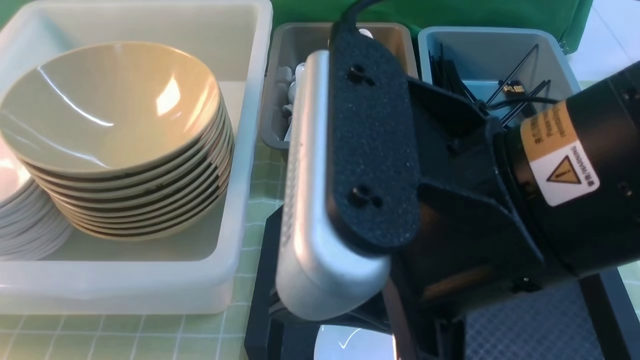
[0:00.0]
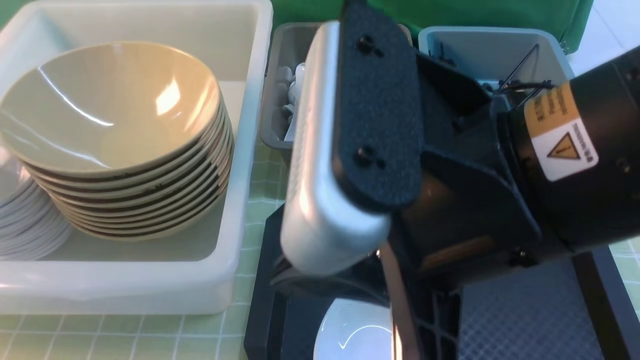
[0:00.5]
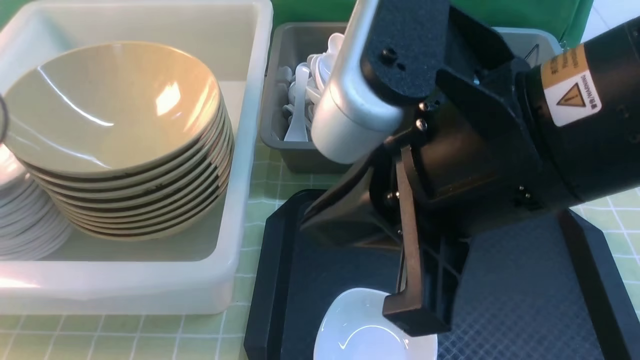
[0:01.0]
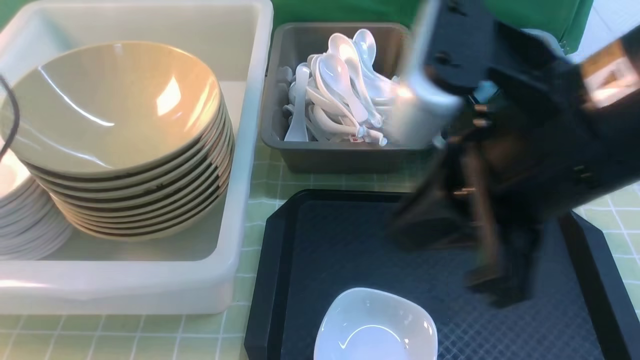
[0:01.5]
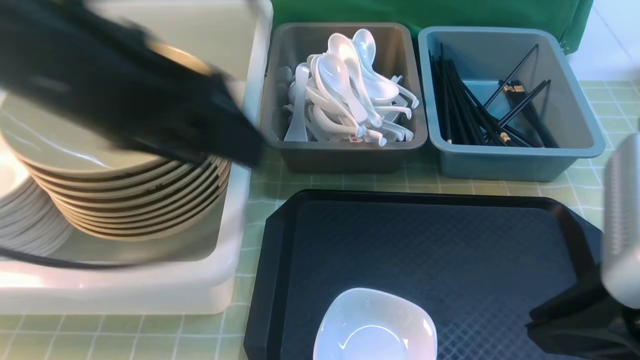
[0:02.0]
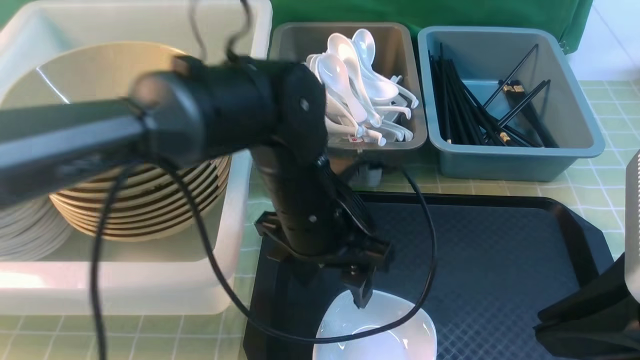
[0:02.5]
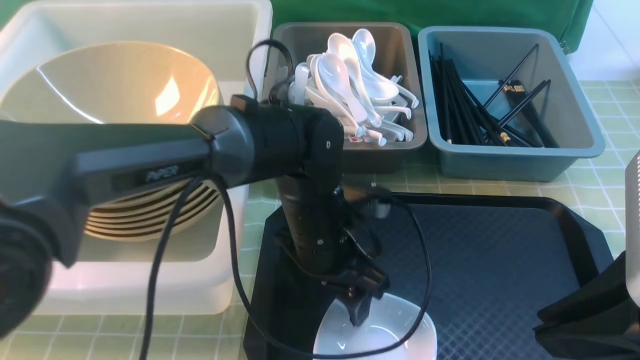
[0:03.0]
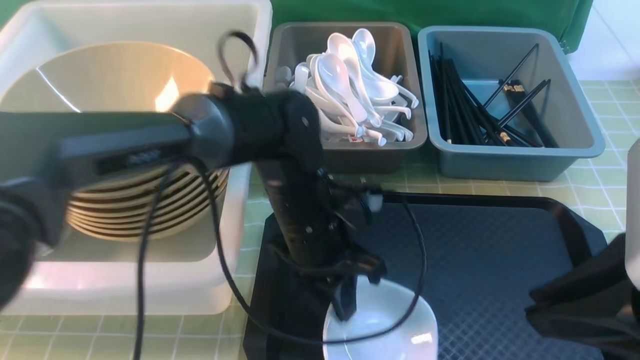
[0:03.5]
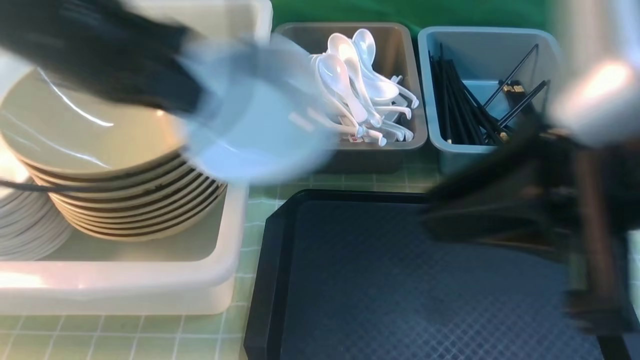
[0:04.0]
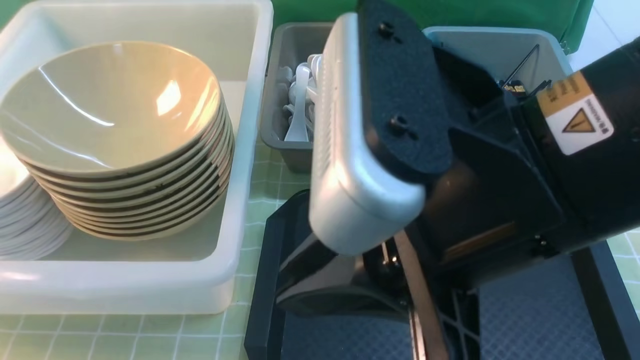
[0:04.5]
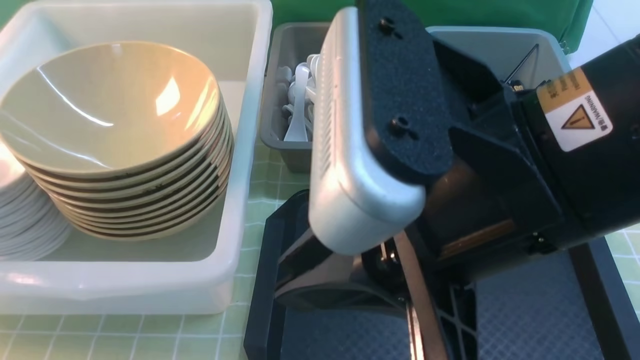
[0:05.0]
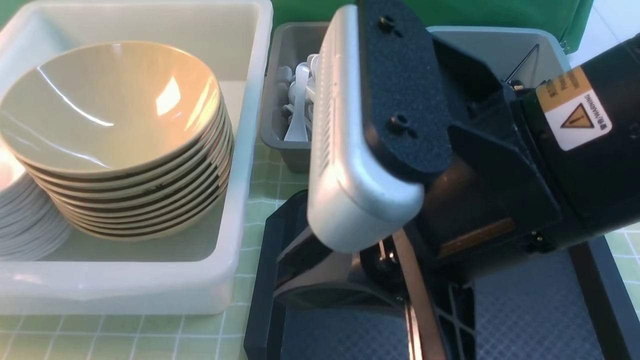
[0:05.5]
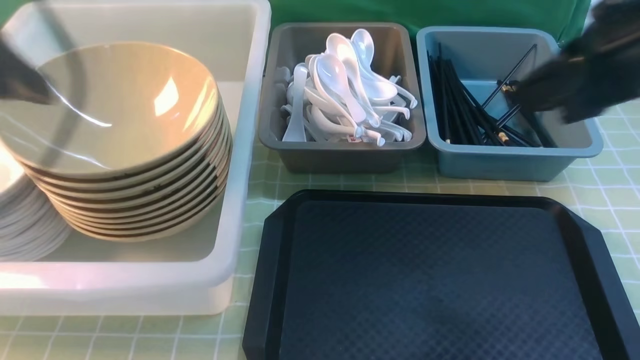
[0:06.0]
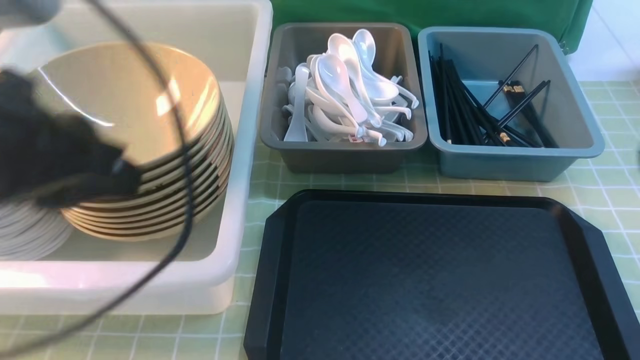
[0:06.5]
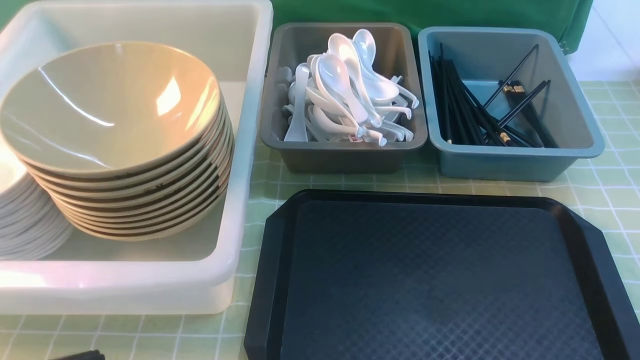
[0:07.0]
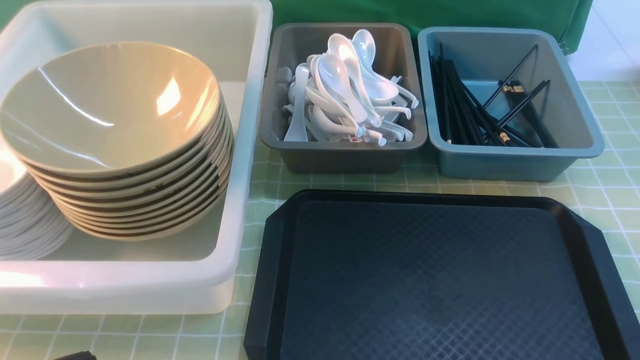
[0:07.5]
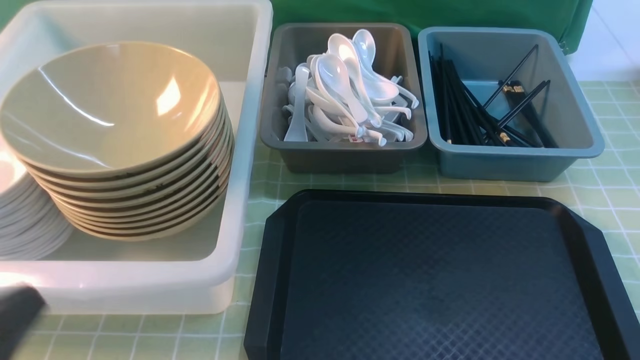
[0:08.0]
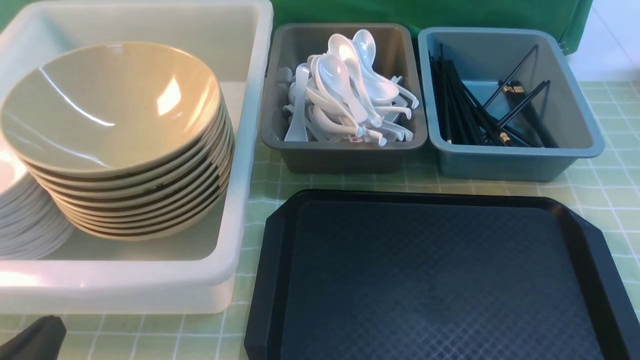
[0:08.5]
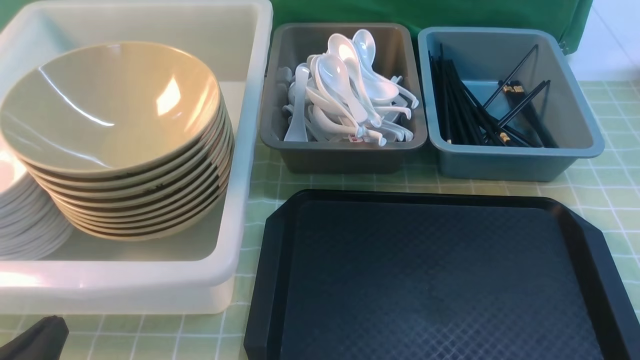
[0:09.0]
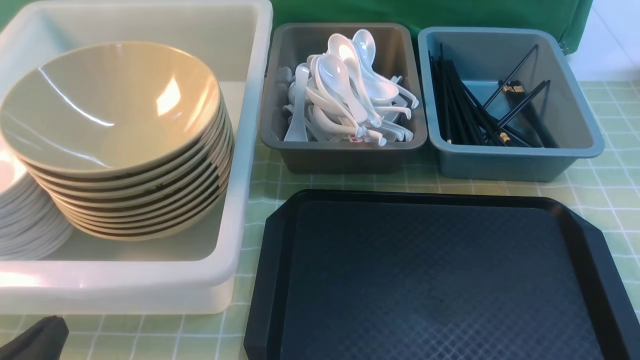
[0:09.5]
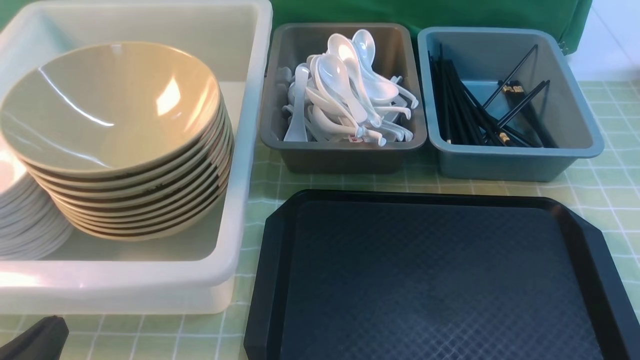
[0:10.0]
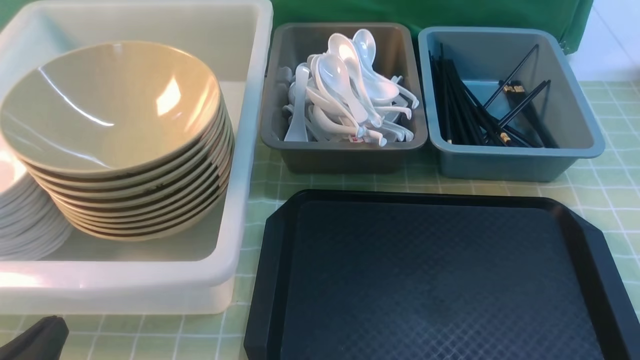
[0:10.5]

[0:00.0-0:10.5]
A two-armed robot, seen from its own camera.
Task of the whole recording: on green table put chopsticks spoon bowls plates into blue grey white boxes.
Step, 0:00.0 to 0:01.5: use the left arm to put the plate into the large storage box on the left.
Step, 0:02.0 to 0:03.5: use the left arm to grab the plate.
Step, 0:04.0 to 0:06.0: use the left arm to put the plate into the large storage box on the left.
0:00.0 to 0:02.0: The right gripper travels to the right by approximately 15 cm; the left gripper moves to the right, some 25 cm, and opens its fingers.
0:02.0 to 0:04.0: The right gripper moves to the left, approximately 5 cm. Meanwhile the left gripper shifts some 10 cm to the left, and closes its fingers.
0:04.0 to 0:06.5: The left gripper travels backward by about 15 cm, moves roughly 20 cm to the left and comes back, and opens, then closes once more, while the right gripper is displaced to the right by about 15 cm.
0:06.5 to 0:08.5: The left gripper is displaced downward by some 20 cm.

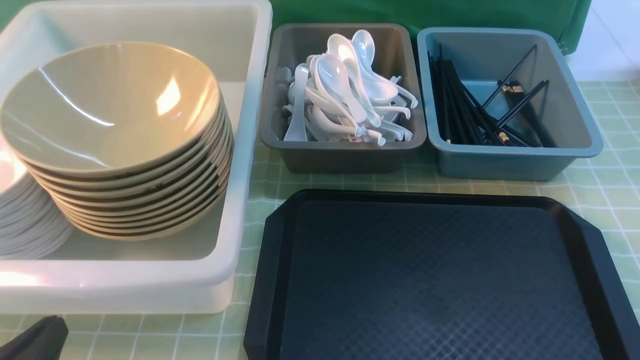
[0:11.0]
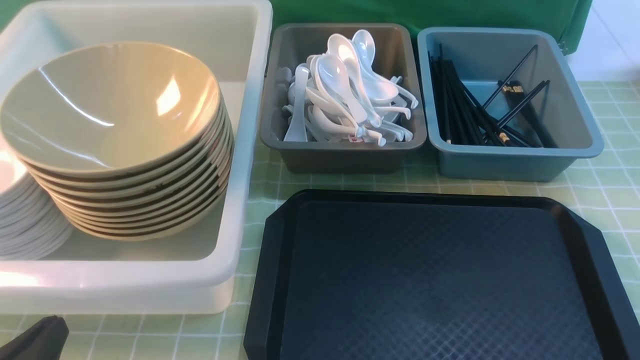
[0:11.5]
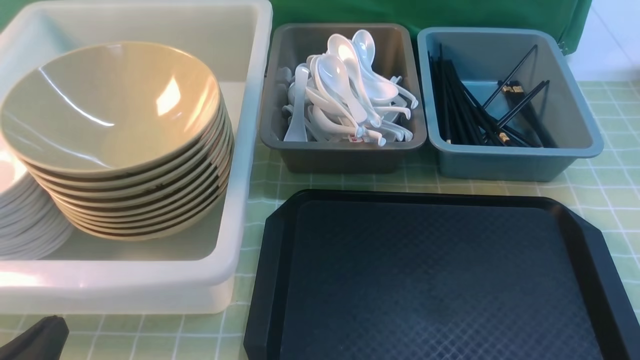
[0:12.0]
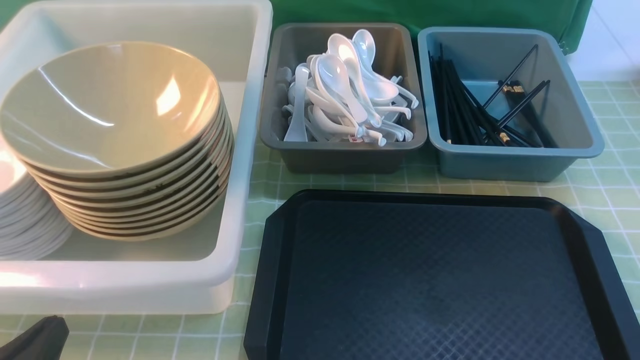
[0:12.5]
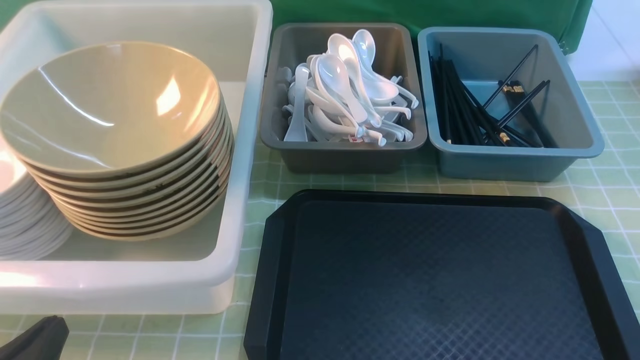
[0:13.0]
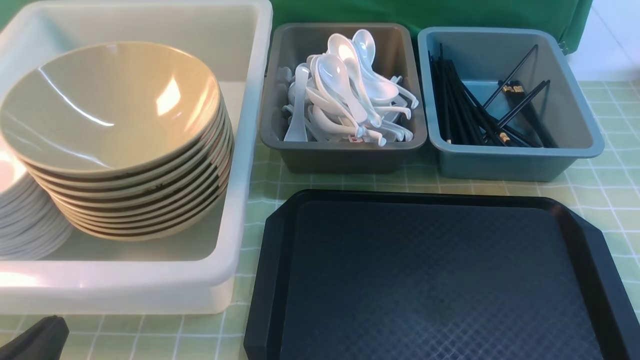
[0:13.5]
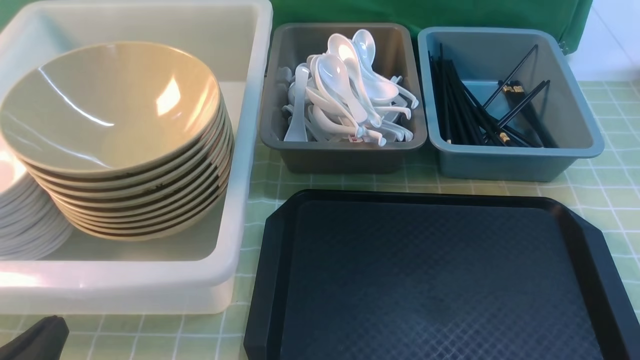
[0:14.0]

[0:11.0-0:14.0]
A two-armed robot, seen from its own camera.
Task of the whole recording: on green table put chopsticks spoon bowls plates into blue grey white boxes.
0:11.0 to 0:14.0: Both grippers stay about where they are.

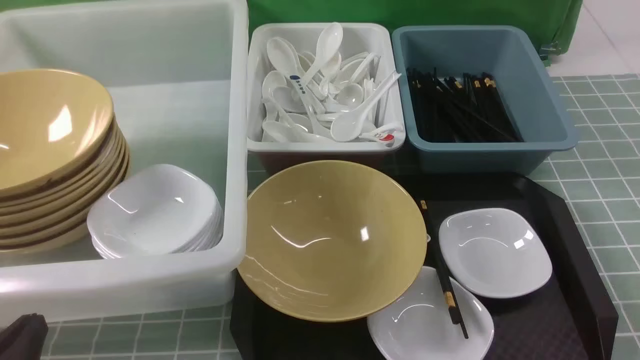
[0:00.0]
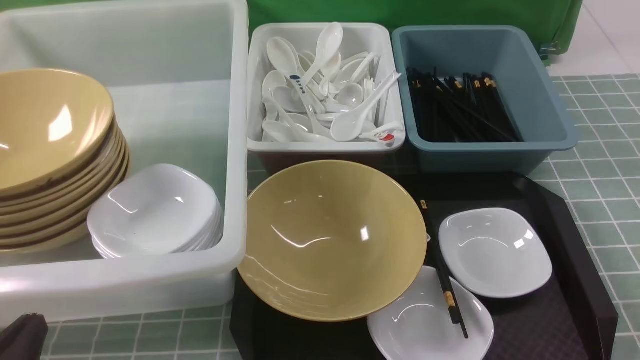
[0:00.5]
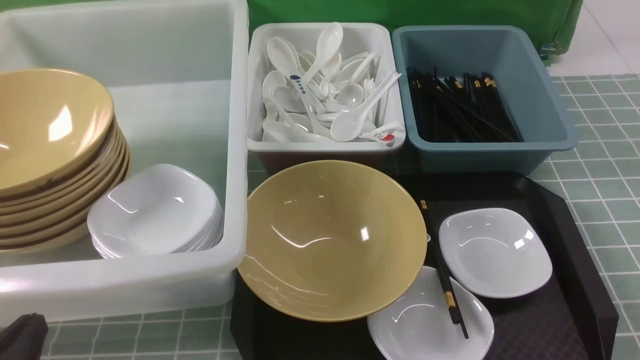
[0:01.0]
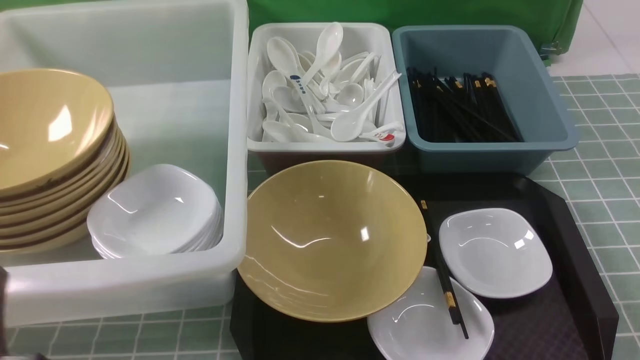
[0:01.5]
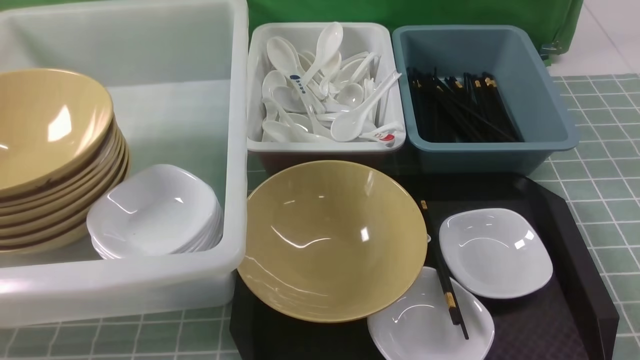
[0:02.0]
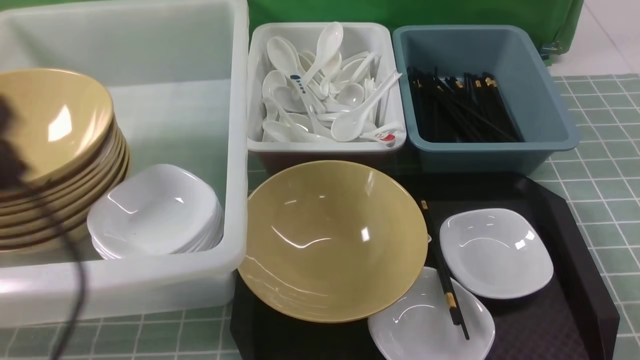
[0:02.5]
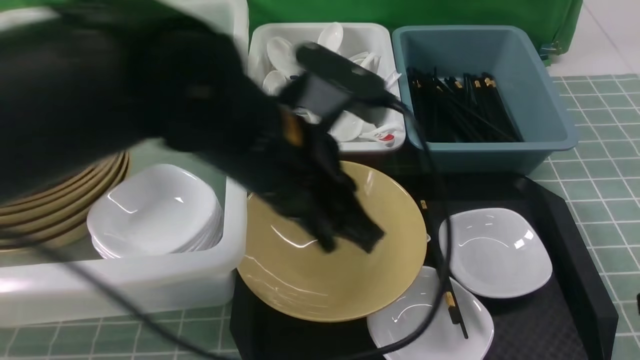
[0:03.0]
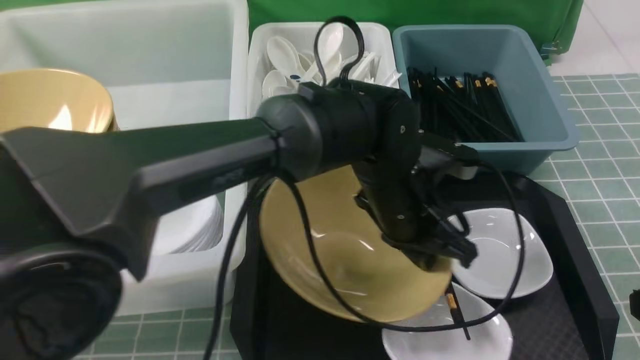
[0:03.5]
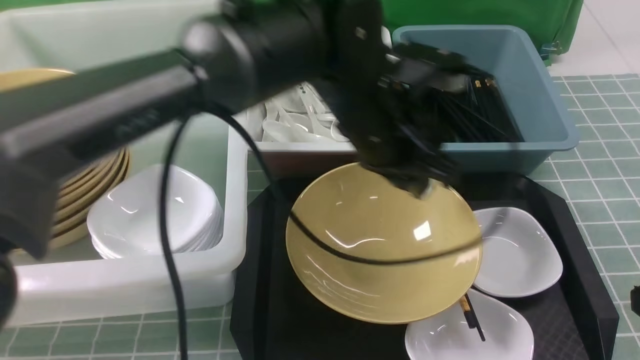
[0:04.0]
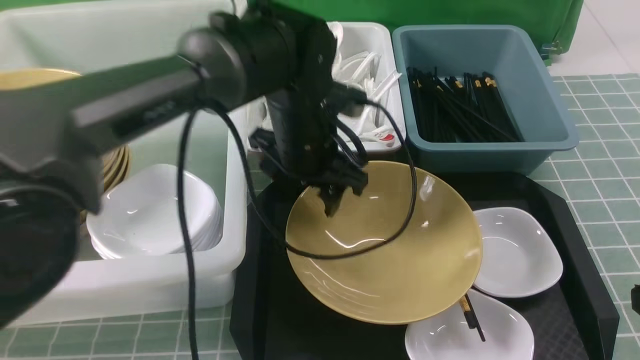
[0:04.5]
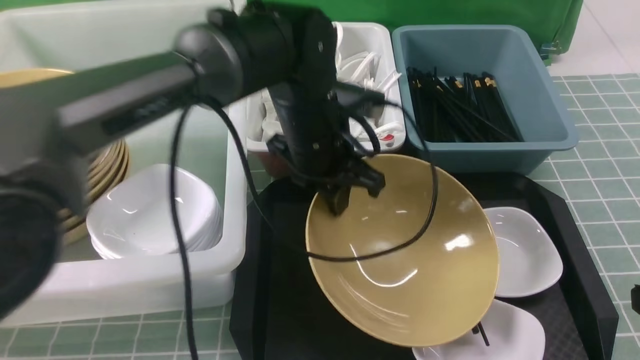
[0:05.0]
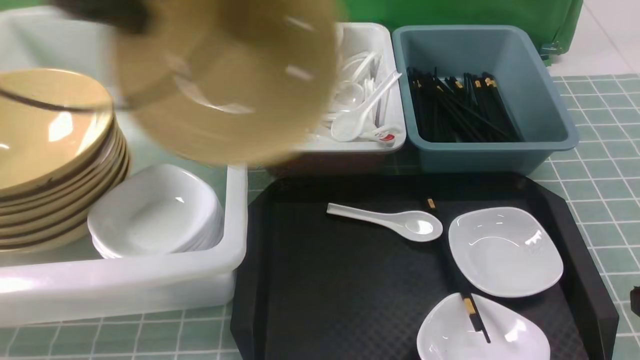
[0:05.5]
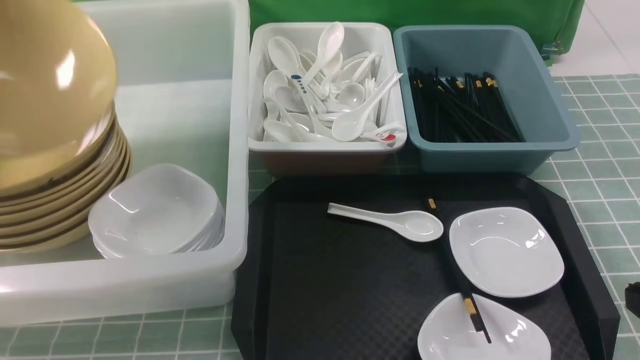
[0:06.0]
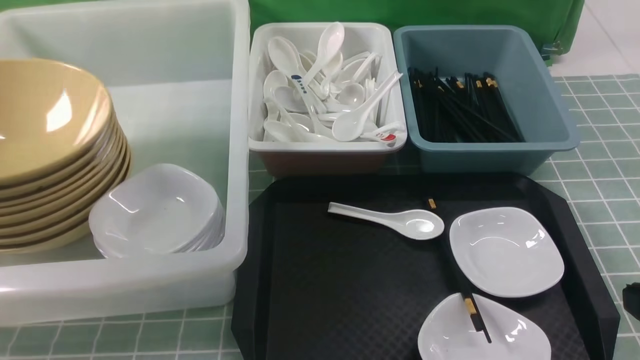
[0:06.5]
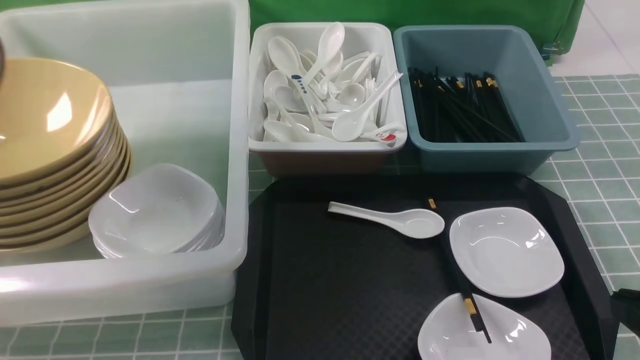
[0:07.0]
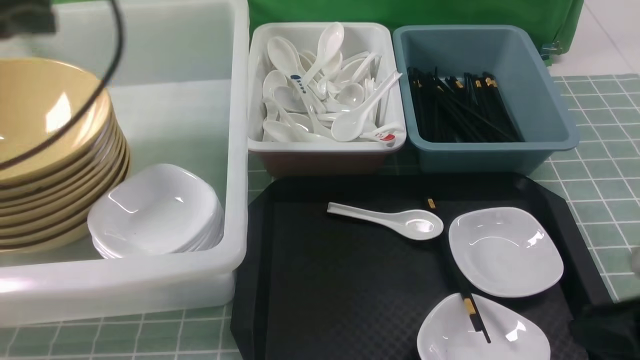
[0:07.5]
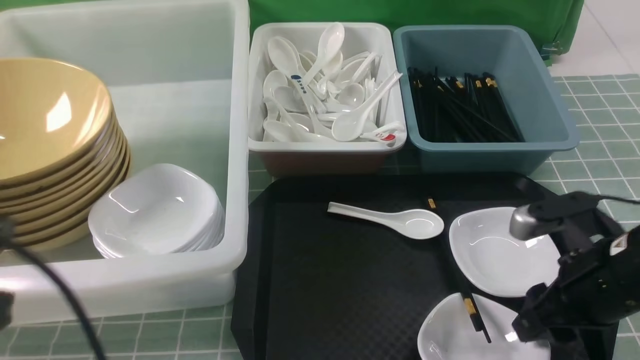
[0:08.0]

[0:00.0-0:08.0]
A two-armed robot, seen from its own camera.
Task of the whole recording: on blue table put chopsticks spoon bowls plates into blue grey white boxes.
Step, 0:00.0 to 0:05.0: use the left arm to grab the yellow noodle bowl on the left.
Step, 0:05.5 to 0:06.0: use the left arm to put the noodle bowl into the large storage box on the left.
0:00.0 to 0:02.0: The left gripper heads upward, covering roughly 15 cm.
0:02.0 to 0:04.0: The left gripper shifts approximately 40 cm forward and to the right, and opens up; the right gripper goes approximately 5 cm forward, and closes its fingers.
0:04.0 to 0:06.0: The left gripper heads to the left, covering approximately 40 cm, and opens and closes again.
0:06.0 to 0:08.0: The right gripper heads forward and downward, covering approximately 15 cm, and opens its fingers. The left gripper heads backward and to the right, covering about 25 cm, and opens, then closes once more.
